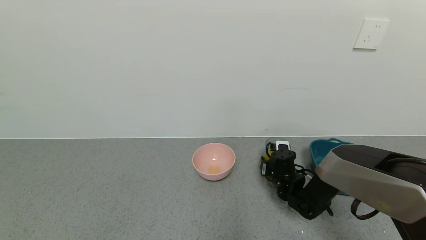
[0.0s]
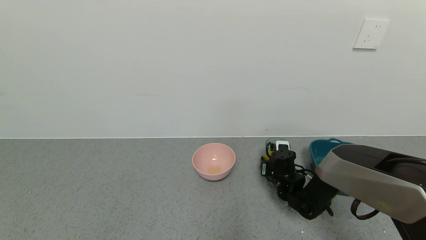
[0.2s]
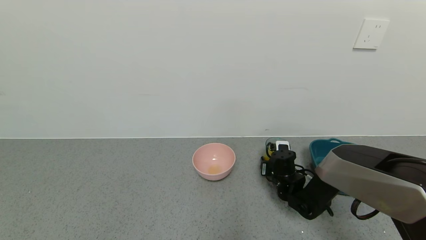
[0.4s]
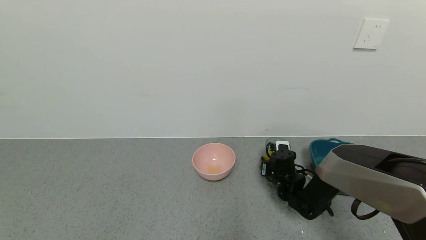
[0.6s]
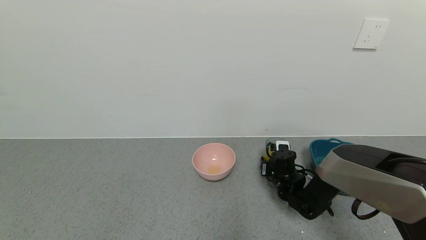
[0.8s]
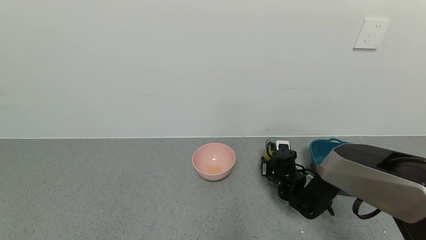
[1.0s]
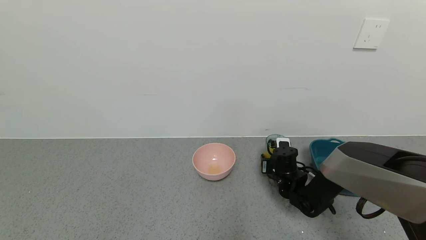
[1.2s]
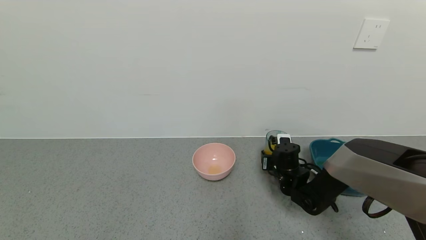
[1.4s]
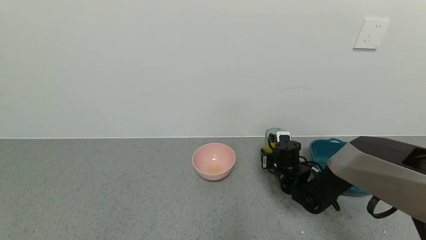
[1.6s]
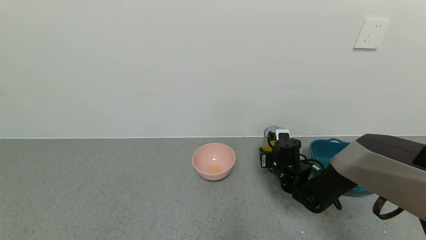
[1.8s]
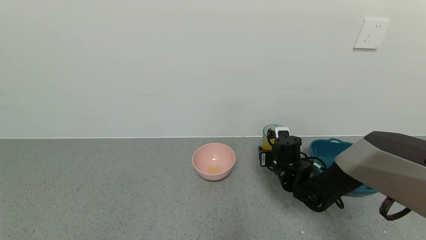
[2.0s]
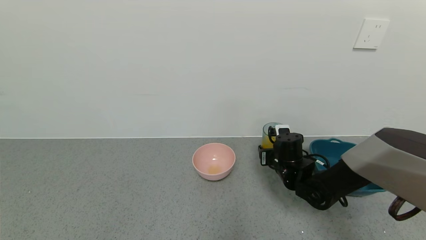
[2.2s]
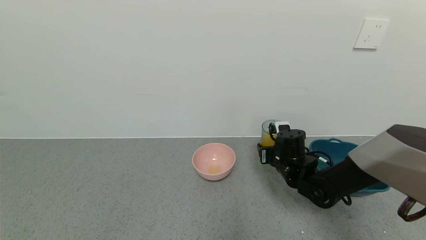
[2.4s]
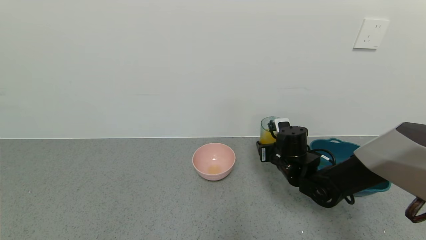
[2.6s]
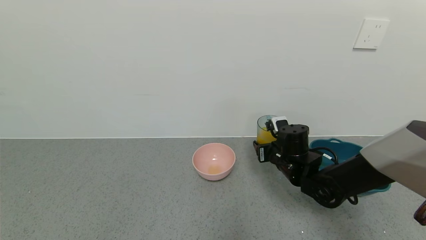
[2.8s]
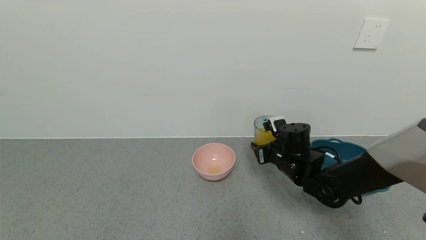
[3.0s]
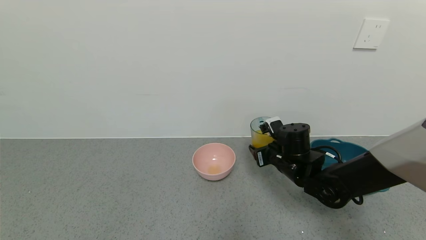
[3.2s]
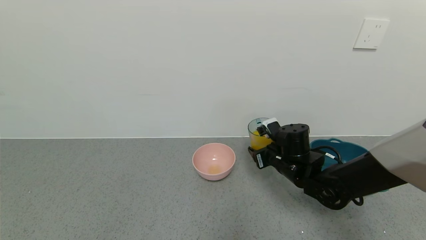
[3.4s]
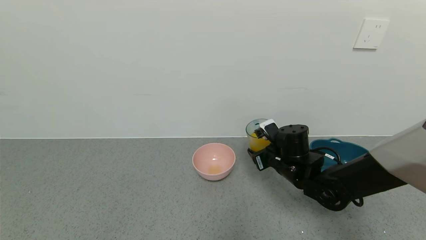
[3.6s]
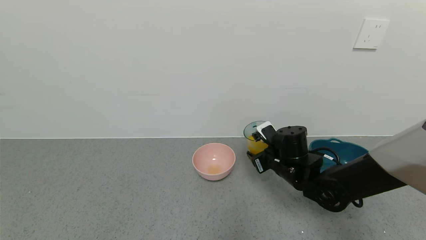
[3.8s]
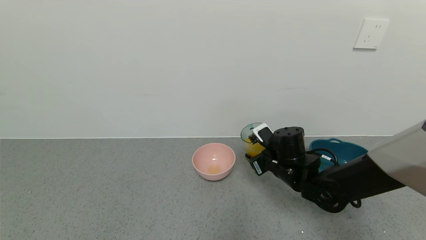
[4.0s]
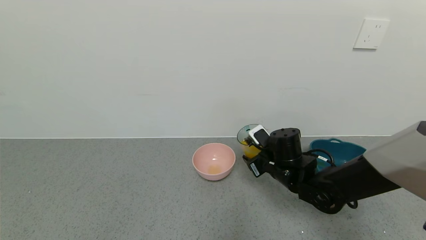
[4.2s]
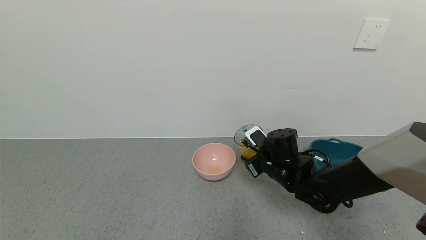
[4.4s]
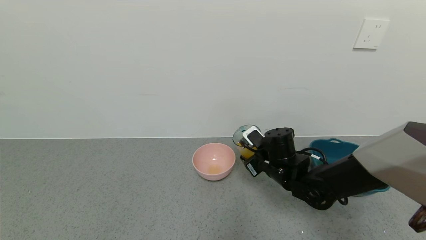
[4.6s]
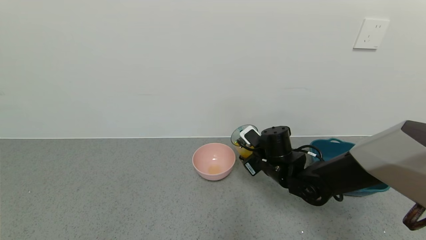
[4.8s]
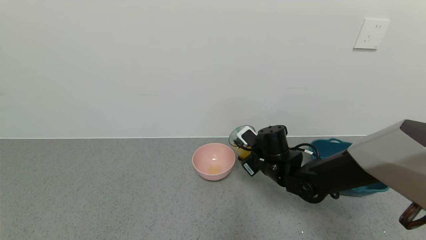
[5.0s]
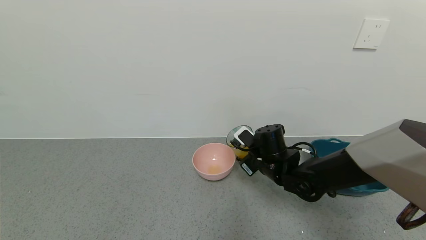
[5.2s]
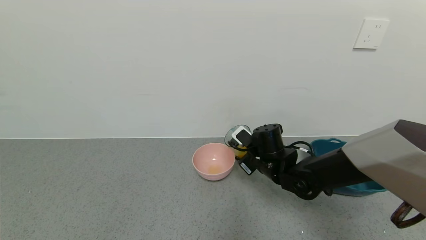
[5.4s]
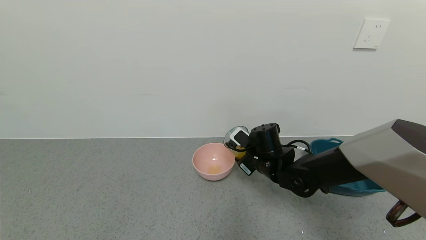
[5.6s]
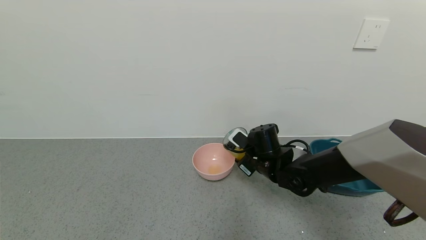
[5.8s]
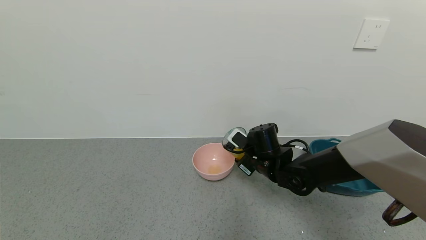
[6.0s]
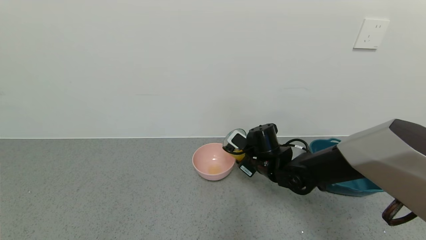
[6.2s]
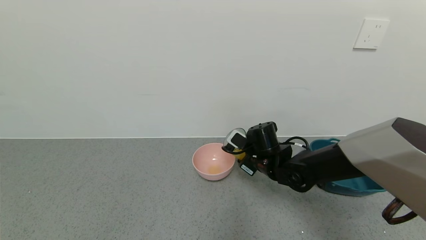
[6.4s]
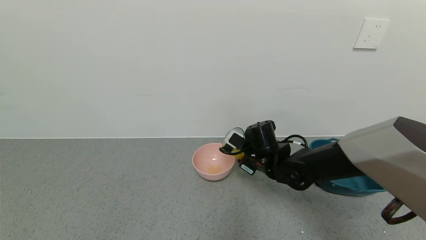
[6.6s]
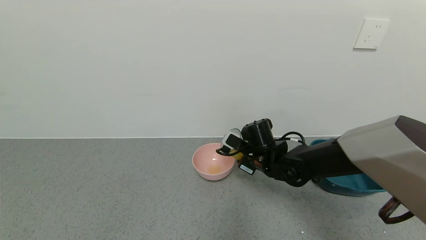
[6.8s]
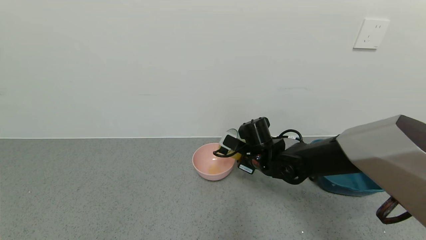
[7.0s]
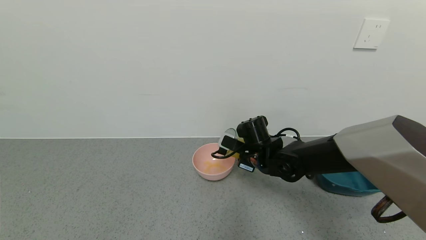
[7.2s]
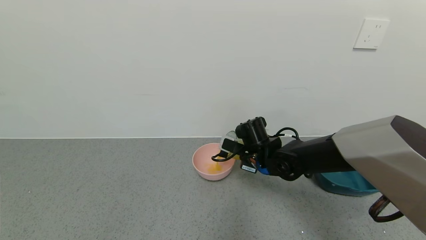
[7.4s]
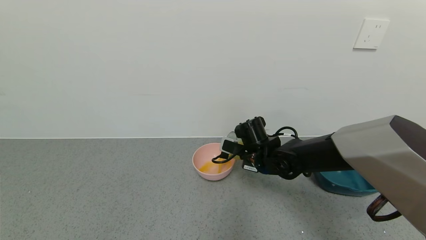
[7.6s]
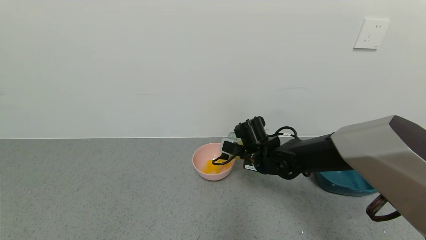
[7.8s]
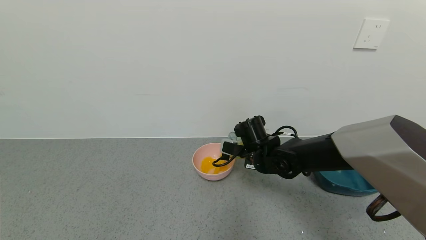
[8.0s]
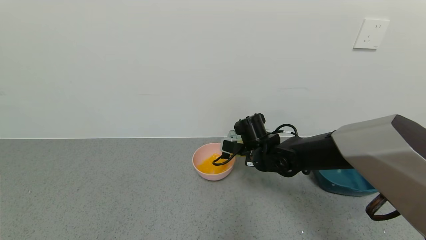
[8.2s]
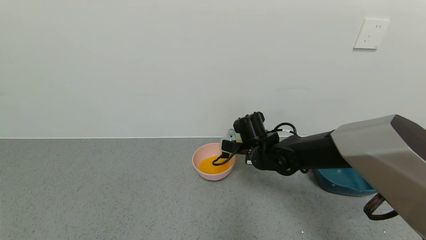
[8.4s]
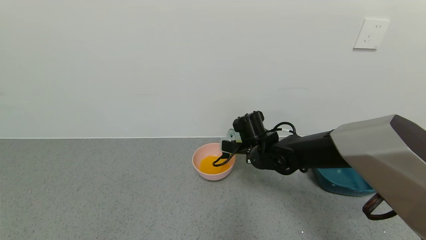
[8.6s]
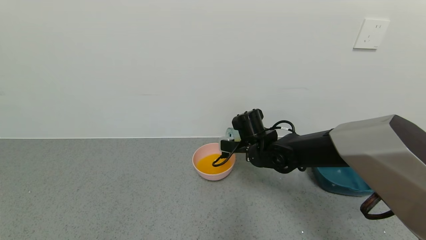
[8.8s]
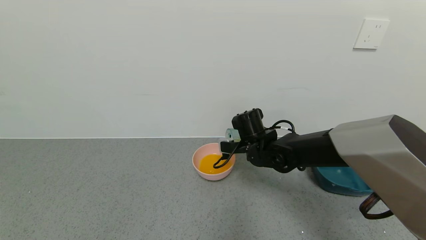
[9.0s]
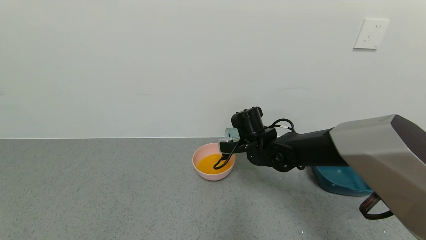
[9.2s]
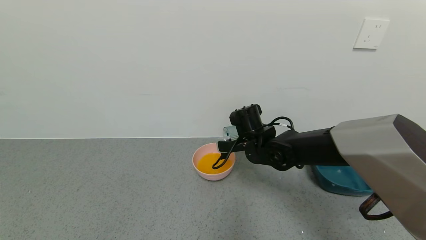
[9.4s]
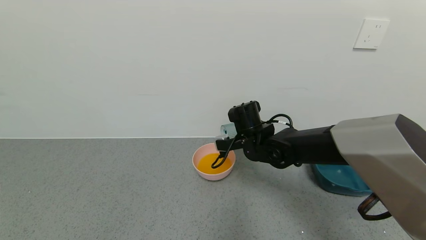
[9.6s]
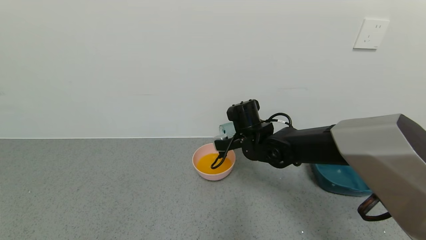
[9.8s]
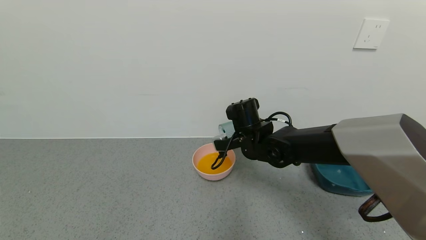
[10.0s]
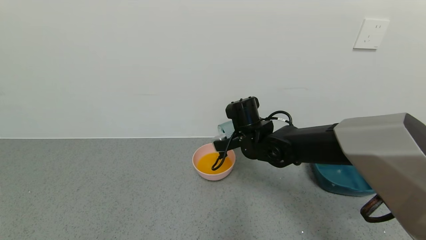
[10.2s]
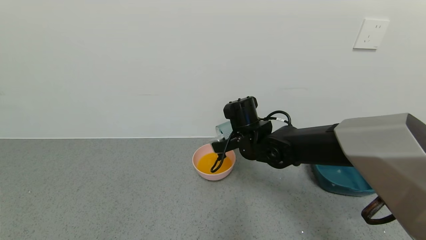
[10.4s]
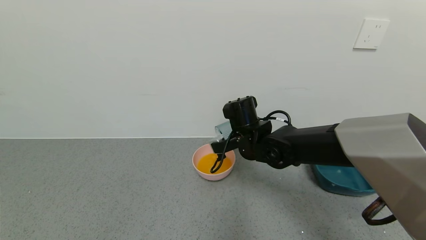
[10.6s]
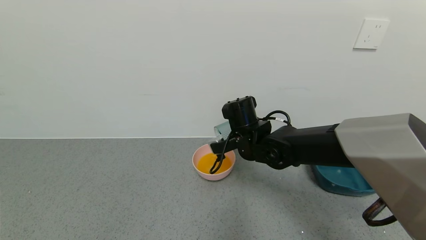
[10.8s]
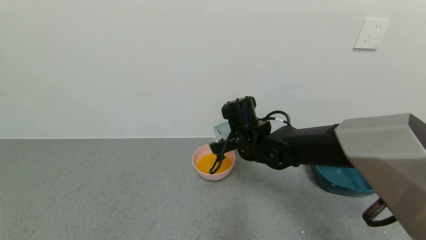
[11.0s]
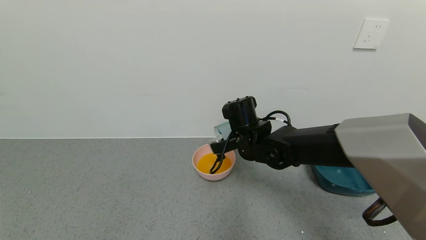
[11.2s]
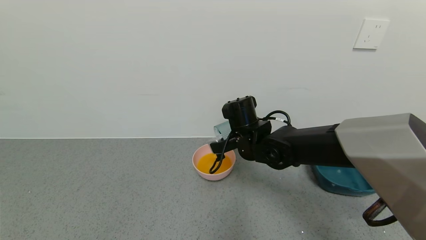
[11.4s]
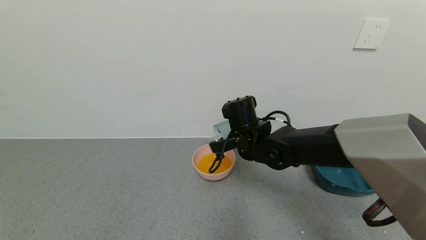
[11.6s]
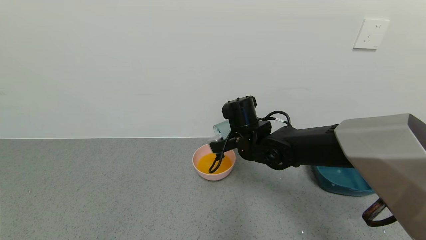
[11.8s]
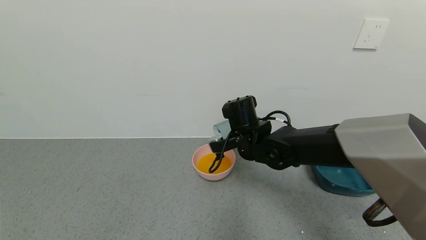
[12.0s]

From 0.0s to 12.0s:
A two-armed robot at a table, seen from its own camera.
Task of the whole recording: use a gripper to pick up the cup and pour the liquid into a bowl or tray.
Step, from 0.0s to 7.8s: Pour the orange juice into the pink bowl with right gripper.
From 0.0s to 1.6s: There are only small adjustments of the grippers.
From 1.6s to 3.0s: The right gripper moves upward, some 5 cm.
From 4.4s to 6.0s: The grippers move only a little.
From 9.0s to 10.4s: The grippers move only a little.
From 10.4s to 12.0s: Both grippers stay about where they are.

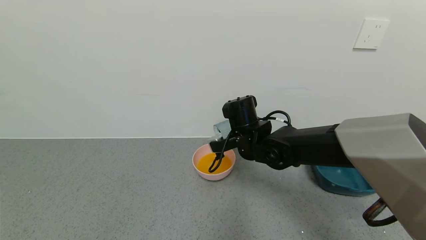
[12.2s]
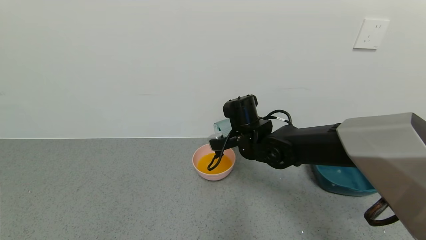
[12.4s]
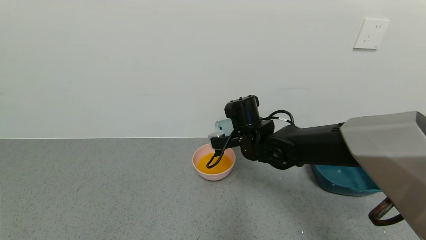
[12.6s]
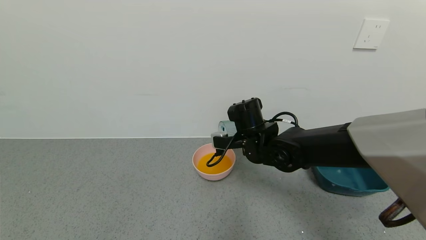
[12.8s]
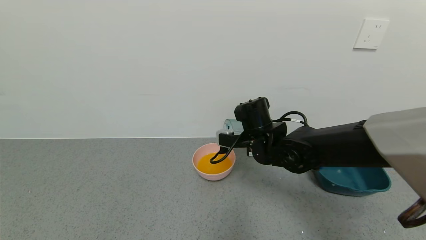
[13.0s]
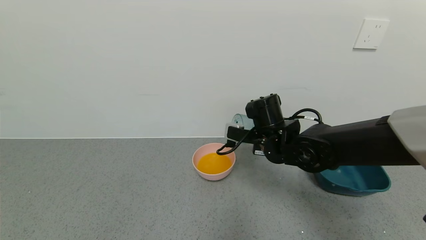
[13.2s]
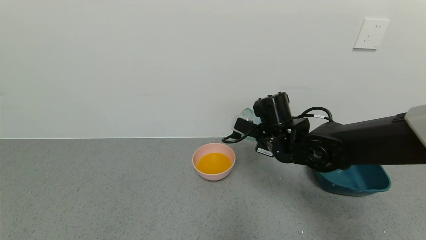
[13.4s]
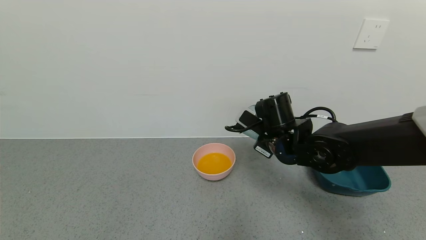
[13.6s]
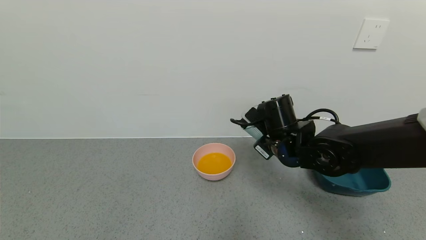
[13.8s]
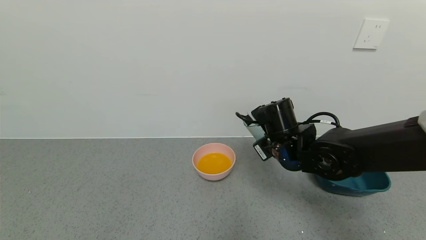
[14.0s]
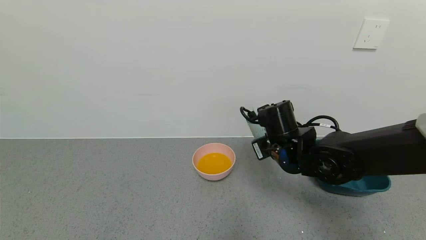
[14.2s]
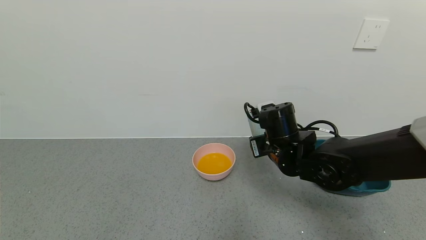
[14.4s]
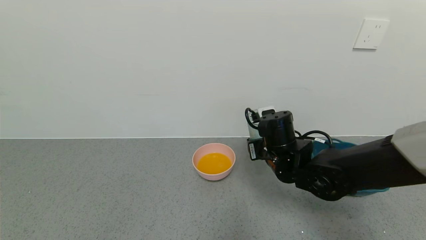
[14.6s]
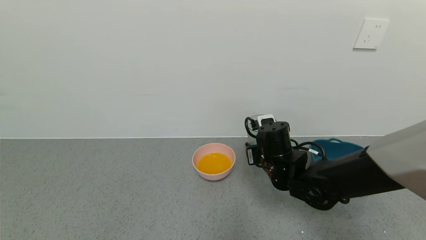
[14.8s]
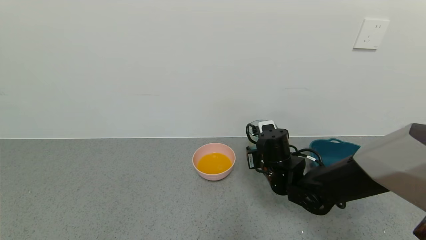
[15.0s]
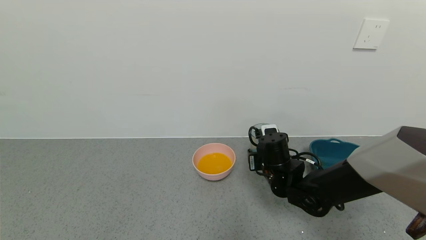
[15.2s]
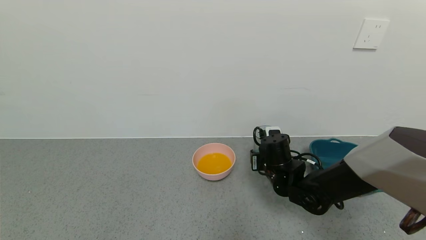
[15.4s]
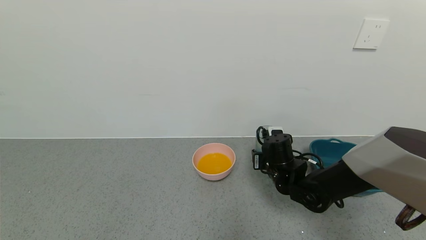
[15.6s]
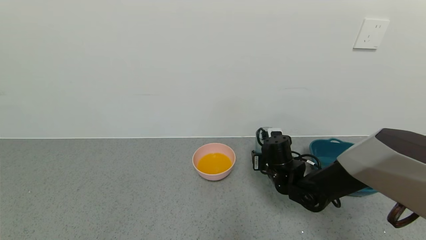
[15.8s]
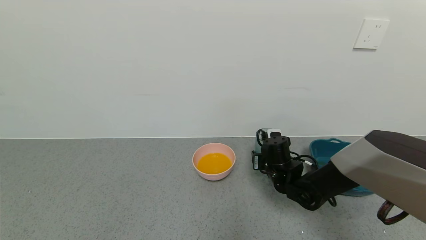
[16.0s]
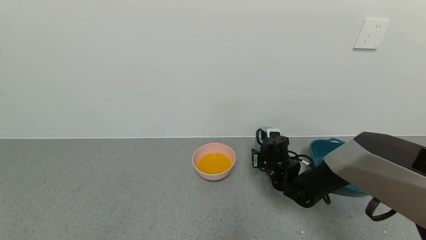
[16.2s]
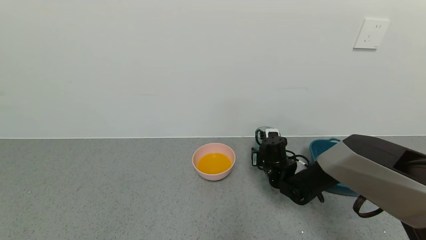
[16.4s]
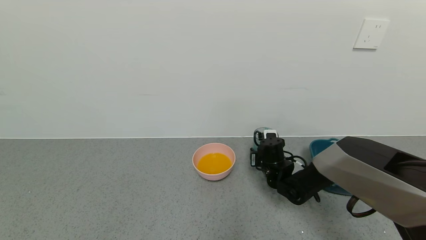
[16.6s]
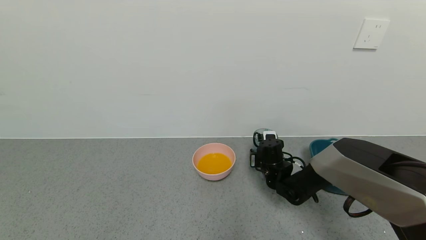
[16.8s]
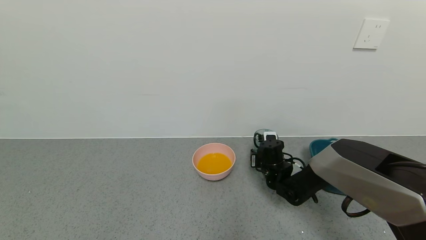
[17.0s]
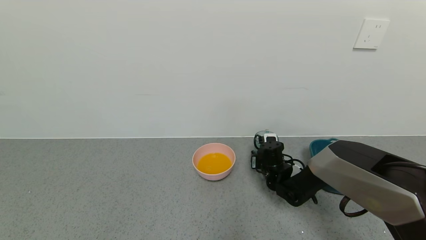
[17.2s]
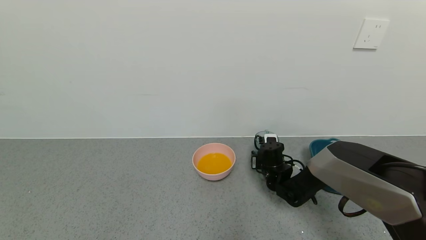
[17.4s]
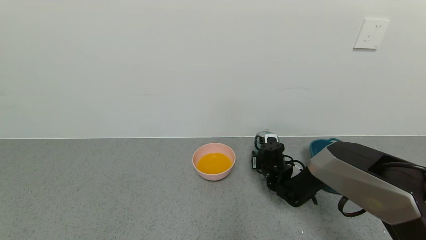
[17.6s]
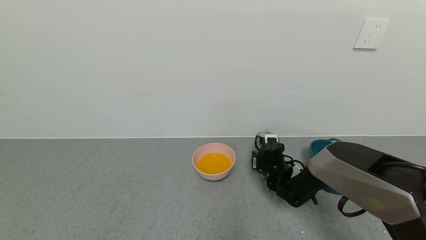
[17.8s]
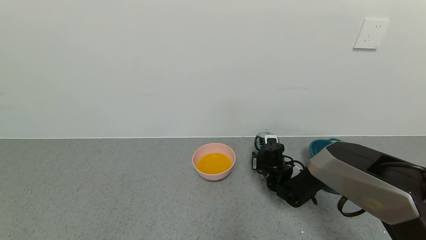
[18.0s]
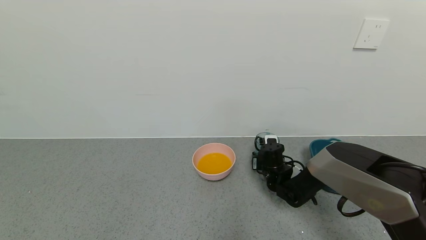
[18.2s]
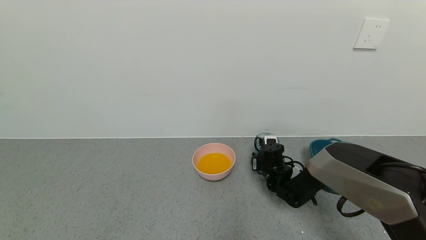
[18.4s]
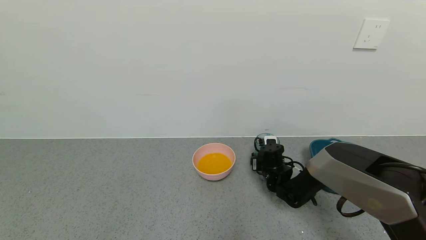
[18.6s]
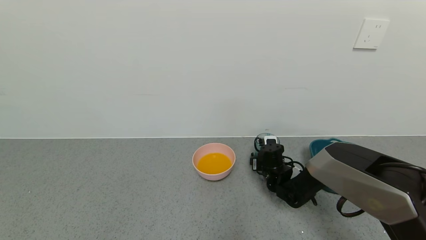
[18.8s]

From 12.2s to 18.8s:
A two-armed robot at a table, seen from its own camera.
Task of the whole recording: use a gripper to pick up the cup and pour the liquid into a bowl or tray.
Step, from 12.2s to 17.6s: Place blue cup with shrimp on the table with right gripper.
From 12.2s to 13.8s: The right gripper shifts approximately 5 cm to the right.
From 13.8s to 15.4s: The right gripper is displaced downward by about 10 cm.
From 15.4s to 17.2s: The right gripper heads downward and forward, covering about 10 cm.
From 17.2s to 18.8s: The right gripper opens its fingers.
